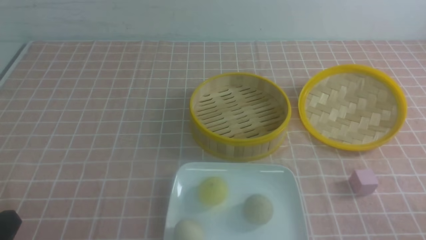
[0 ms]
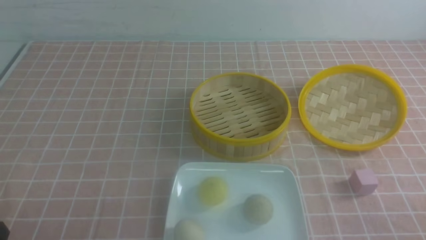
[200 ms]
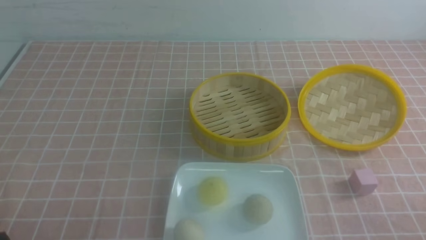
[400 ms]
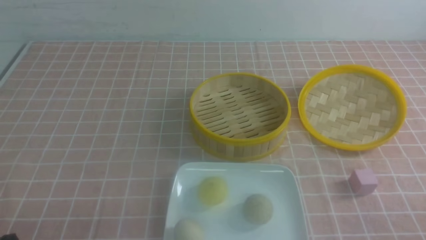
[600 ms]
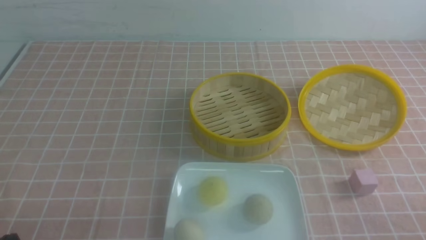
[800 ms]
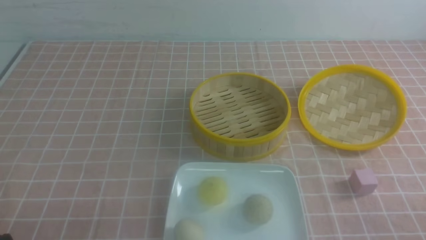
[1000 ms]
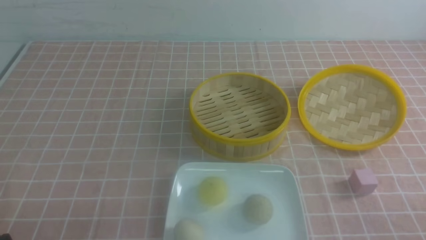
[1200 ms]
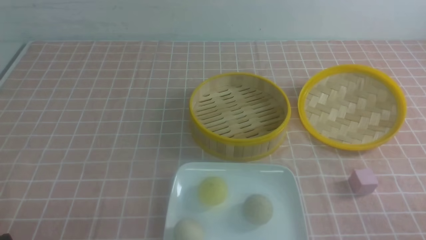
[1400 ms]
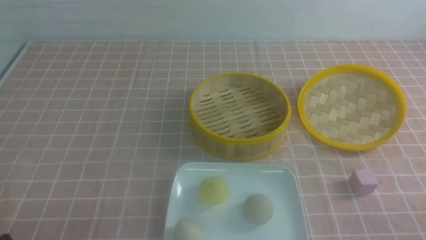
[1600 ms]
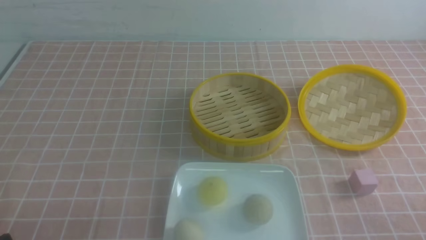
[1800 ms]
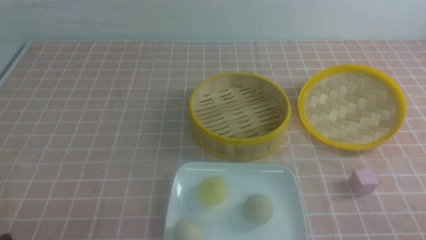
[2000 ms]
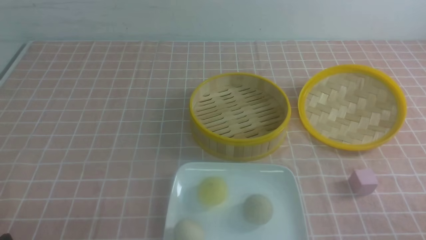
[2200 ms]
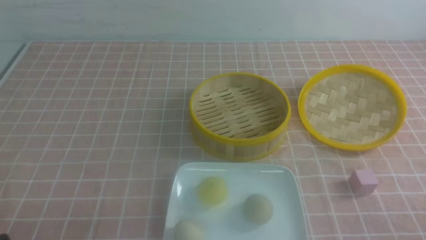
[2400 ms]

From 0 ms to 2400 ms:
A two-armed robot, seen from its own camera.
From 1200 ms to 2400 ms: The two grippers keep their place.

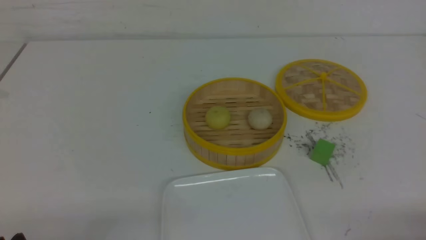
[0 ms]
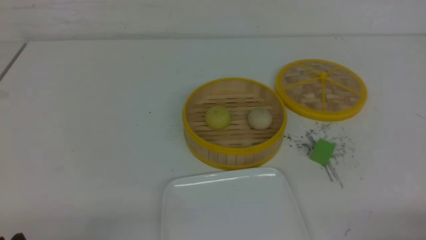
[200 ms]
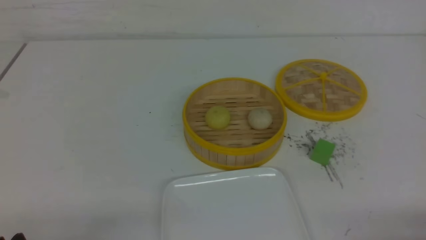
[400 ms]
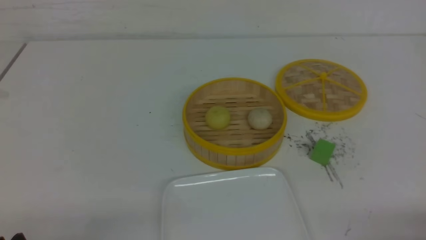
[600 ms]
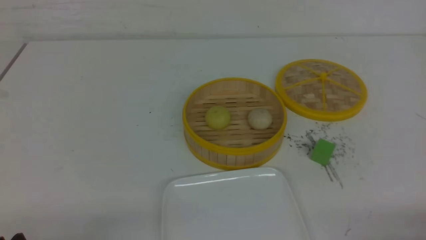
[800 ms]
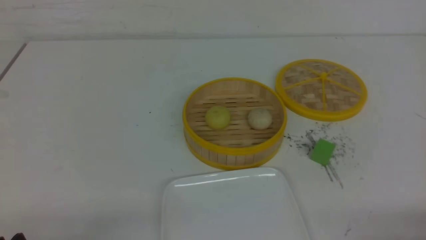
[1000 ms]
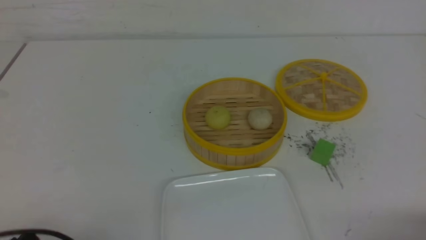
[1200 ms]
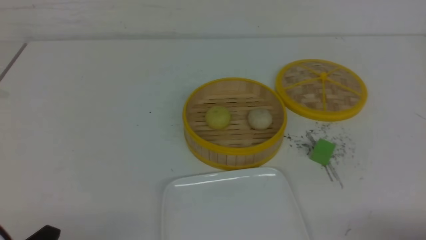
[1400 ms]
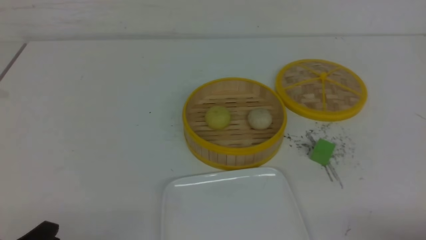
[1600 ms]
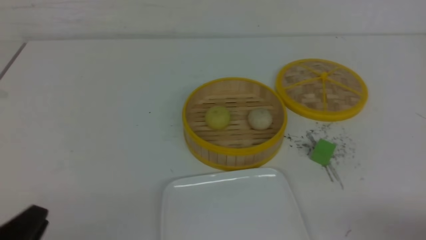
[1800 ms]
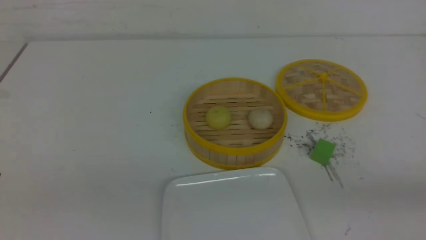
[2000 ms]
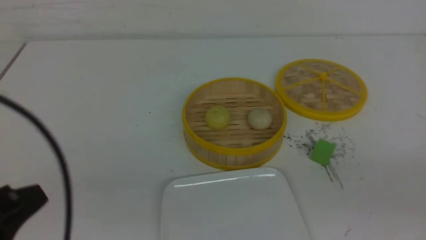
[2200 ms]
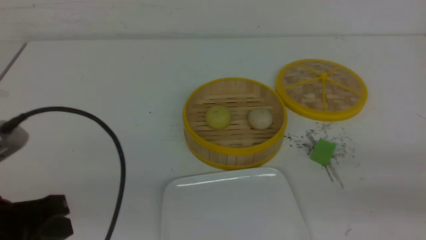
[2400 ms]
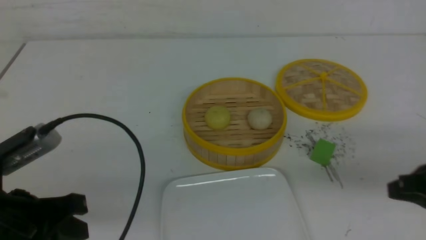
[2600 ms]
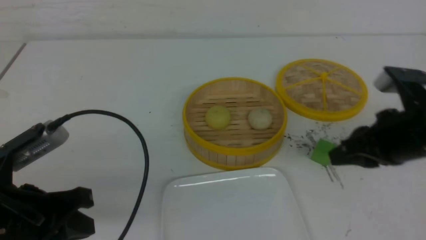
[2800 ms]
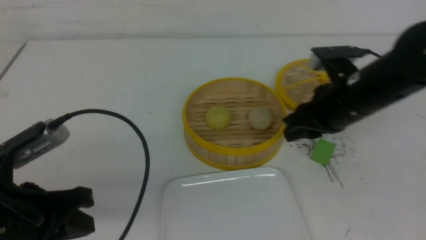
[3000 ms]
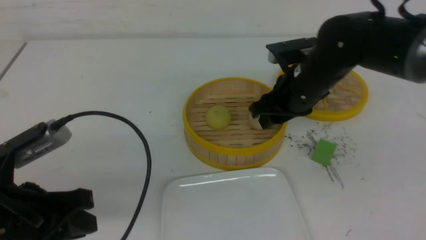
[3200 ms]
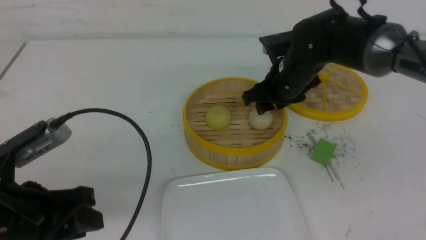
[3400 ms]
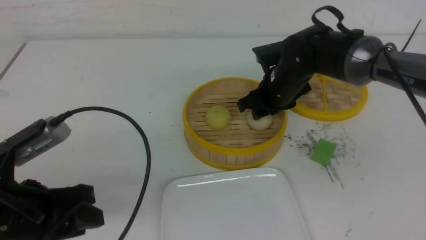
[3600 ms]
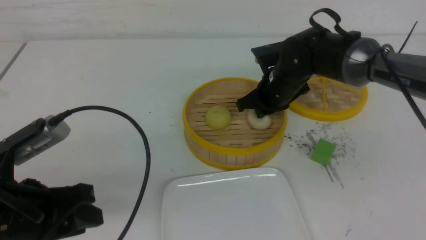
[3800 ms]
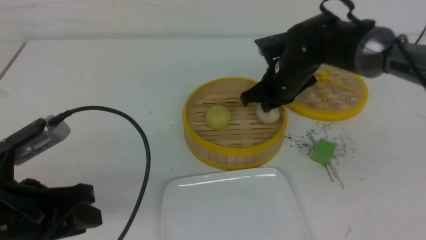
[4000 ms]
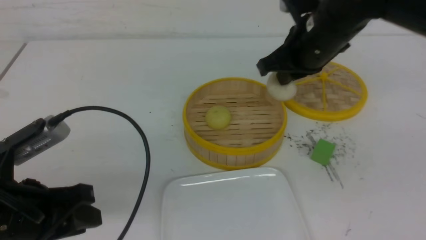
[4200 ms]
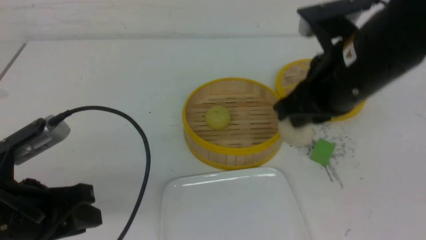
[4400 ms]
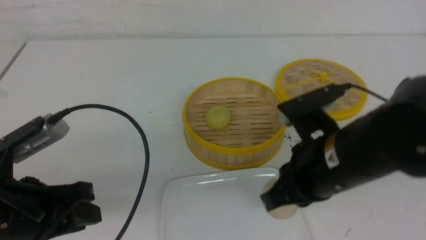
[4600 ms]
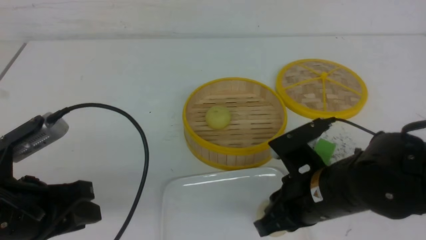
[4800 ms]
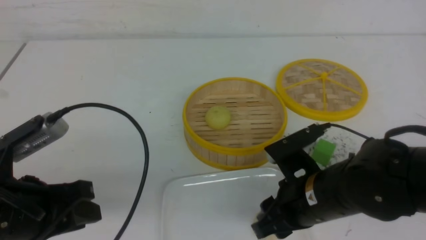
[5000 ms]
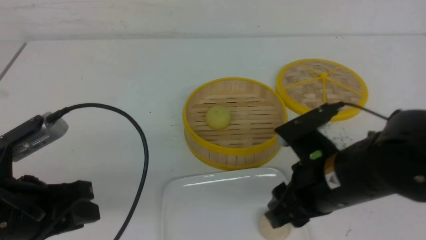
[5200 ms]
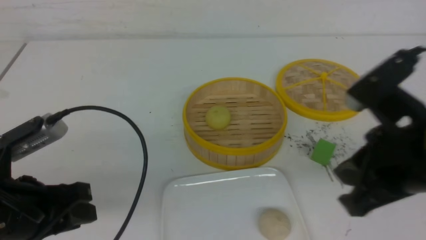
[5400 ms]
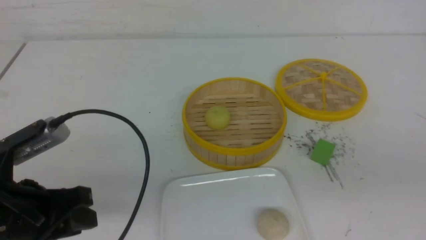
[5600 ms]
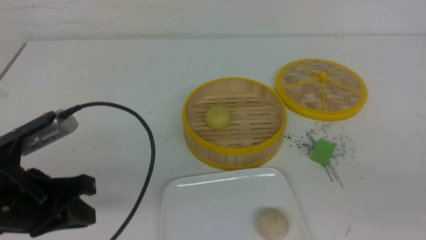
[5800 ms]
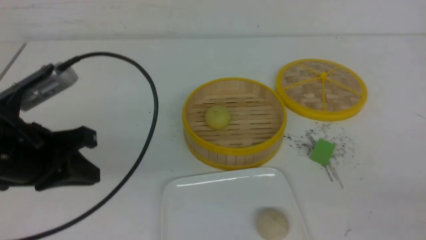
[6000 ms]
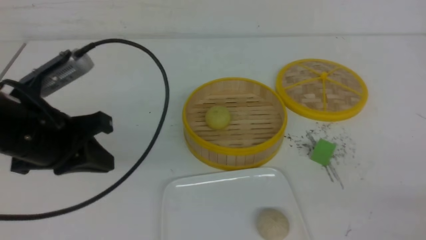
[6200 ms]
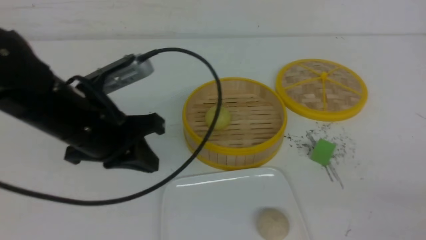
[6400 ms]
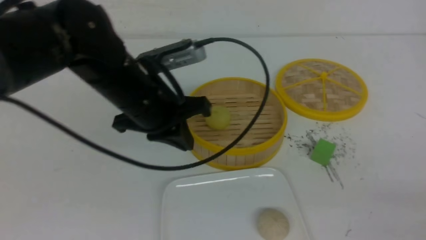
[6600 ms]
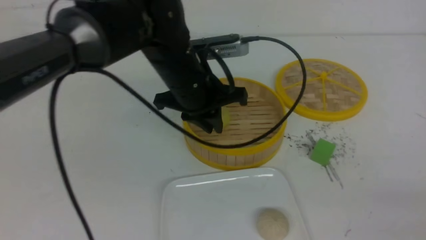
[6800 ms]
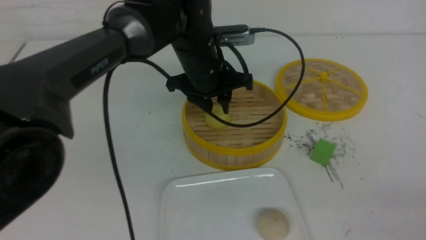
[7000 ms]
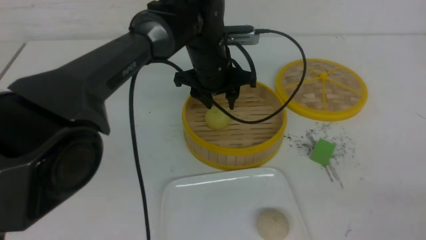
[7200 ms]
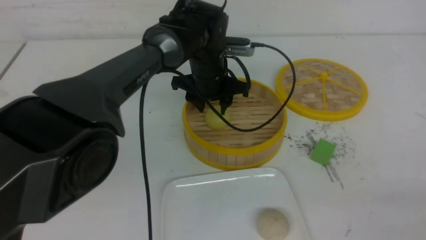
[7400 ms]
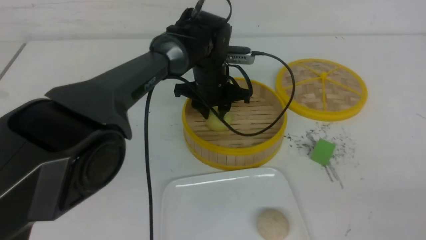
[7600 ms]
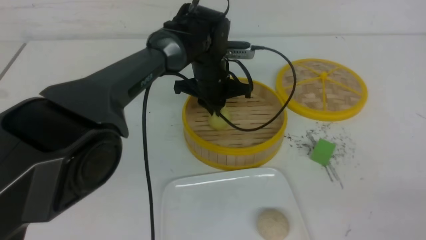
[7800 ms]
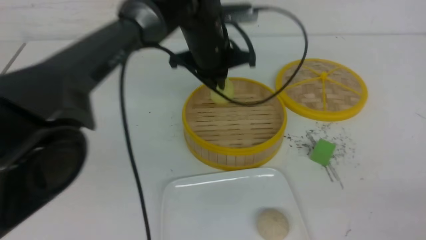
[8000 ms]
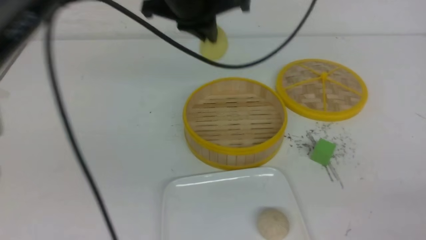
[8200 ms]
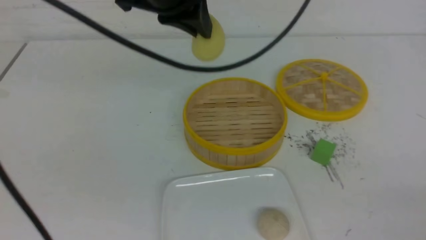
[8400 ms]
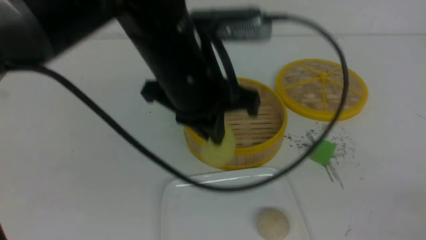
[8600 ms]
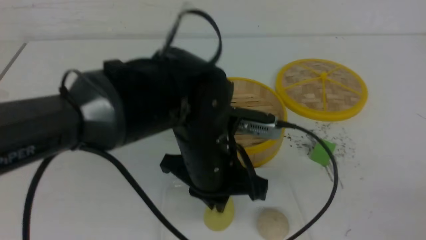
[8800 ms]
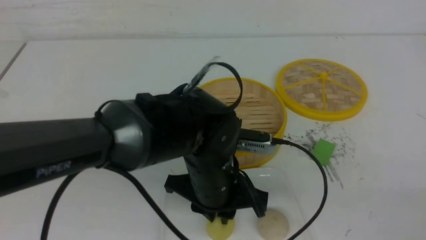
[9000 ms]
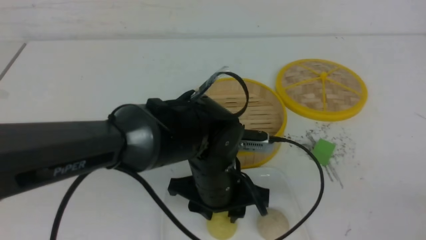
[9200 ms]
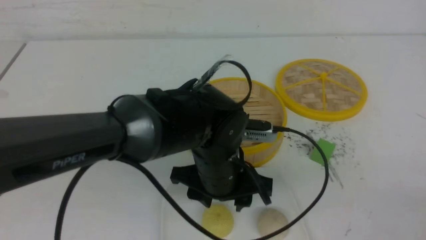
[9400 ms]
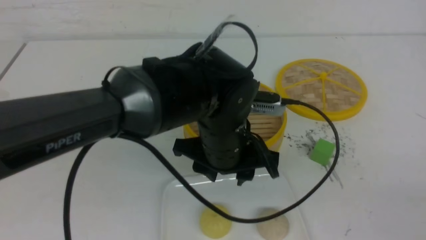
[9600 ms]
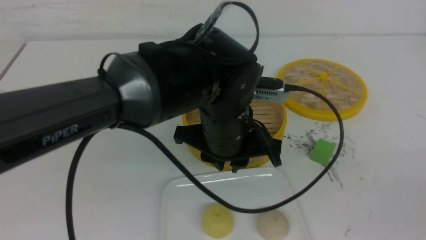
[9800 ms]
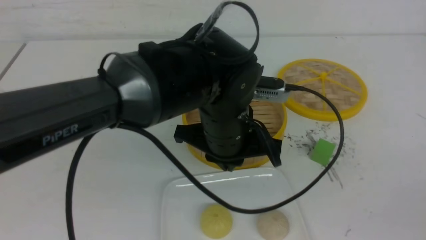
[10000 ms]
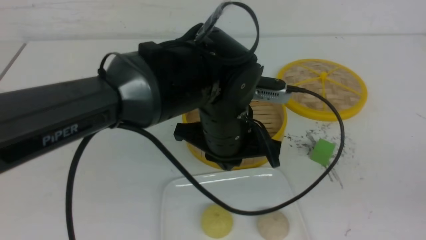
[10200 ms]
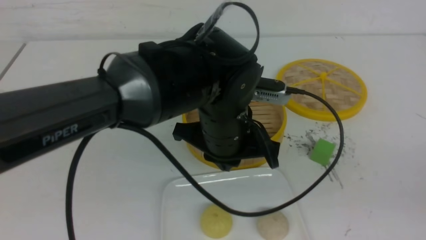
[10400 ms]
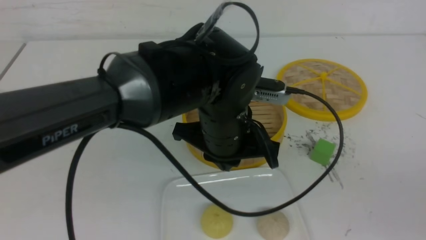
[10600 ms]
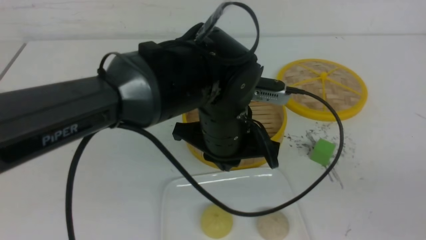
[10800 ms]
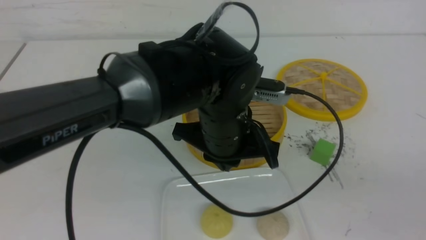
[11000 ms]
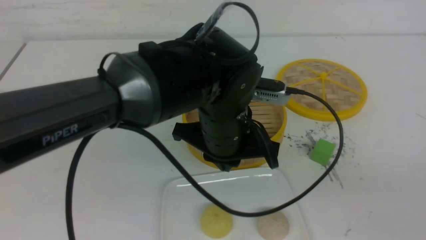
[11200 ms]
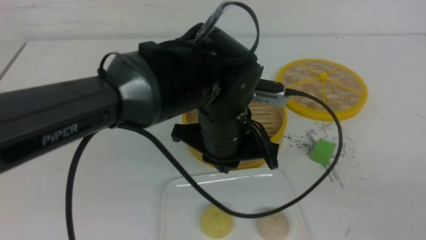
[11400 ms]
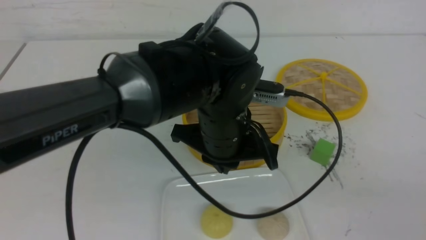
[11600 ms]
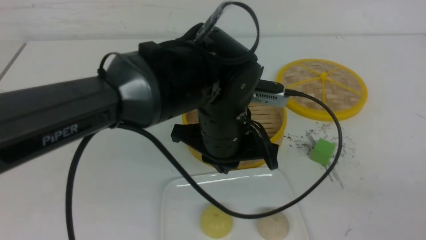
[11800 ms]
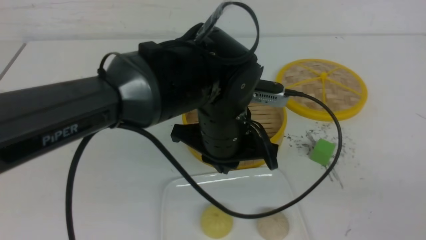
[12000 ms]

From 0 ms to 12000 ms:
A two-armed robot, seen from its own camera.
Step, from 0 ms to 3800 ms: use the right arm to grab the steamed stuffed bun that is closest to it.
Step, from 4000 ms to 5000 ms: use the right arm to put the steamed stuffed bun into the plate.
Step, from 5200 ms to 7600 ms: use the left arm to grab the steamed stuffed bun that is closest to it.
Step, from 8000 ms to 9400 ms: use the left arm to put the steamed stuffed bun into the plate.
From 1600 ms to 3000 ms: The right gripper shifts approximately 30 cm forward and to the left, and closes, then reopens, while the left gripper shifts approximately 10 cm forward and upward, and closes.
From 3000 ms to 4400 ms: The right gripper reaches roughly 10 cm forward, then returns, and closes. The left gripper opens.
From 4400 ms to 6000 ms: The right gripper shifts approximately 30 cm backward and to the right, and opens and closes again, while the left gripper shifts by some 5 cm, and closes its fingers.
From 6000 ms to 7600 ms: The left gripper heads forward and to the right, covering approximately 30 cm, and opens its fingers.
From 7600 ms to 9000 ms: The left gripper moves backward, some 20 cm, and closes, then opens again.
From 9000 ms to 10400 ms: Both grippers travel together upward, approximately 5 cm. The left gripper closes its fingers.
From 10400 ms to 12000 ms: The right gripper heads to the left and downward, covering approximately 10 cm.

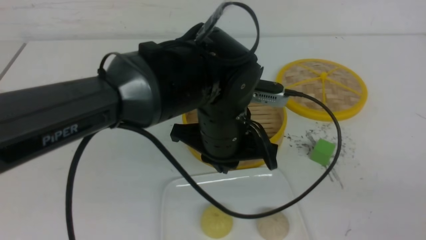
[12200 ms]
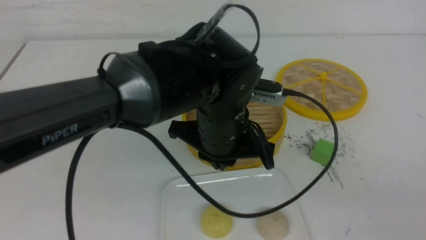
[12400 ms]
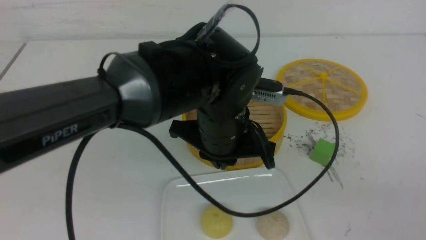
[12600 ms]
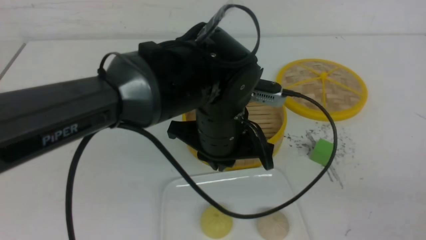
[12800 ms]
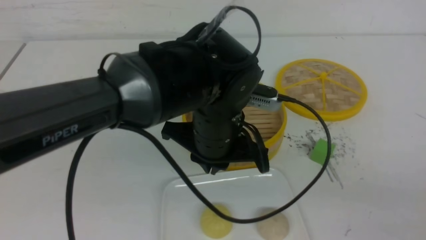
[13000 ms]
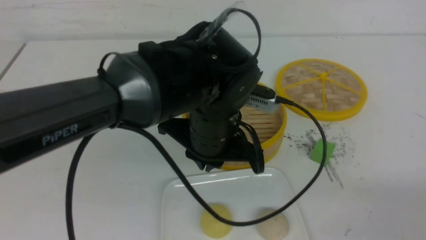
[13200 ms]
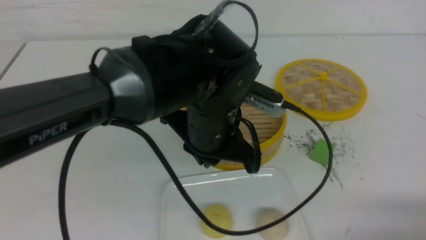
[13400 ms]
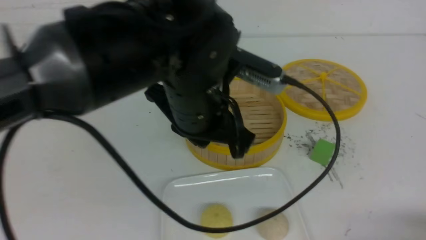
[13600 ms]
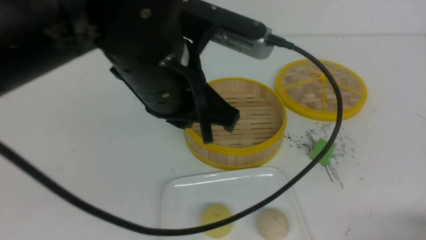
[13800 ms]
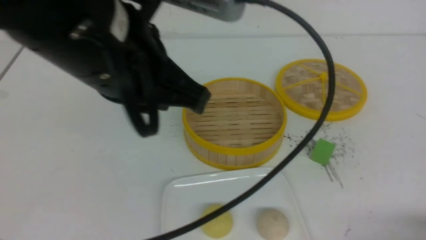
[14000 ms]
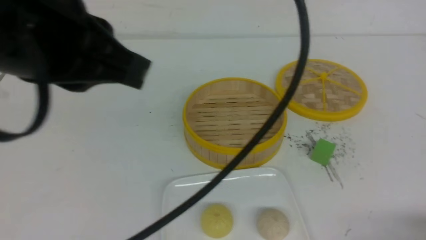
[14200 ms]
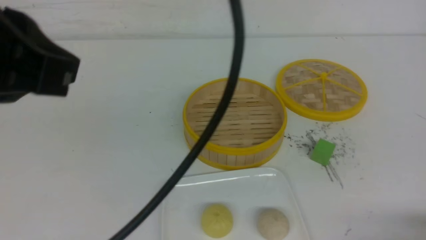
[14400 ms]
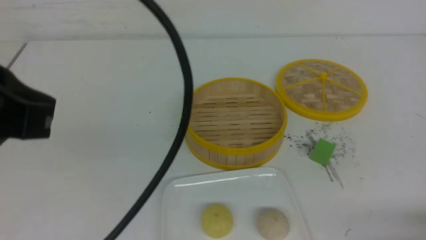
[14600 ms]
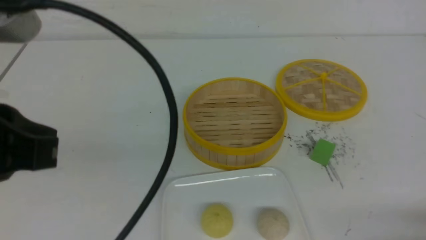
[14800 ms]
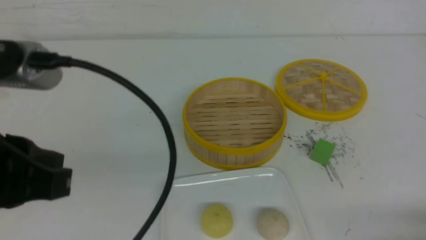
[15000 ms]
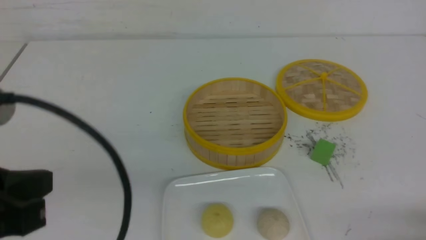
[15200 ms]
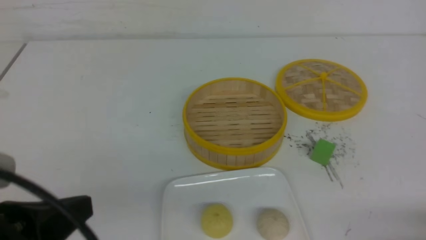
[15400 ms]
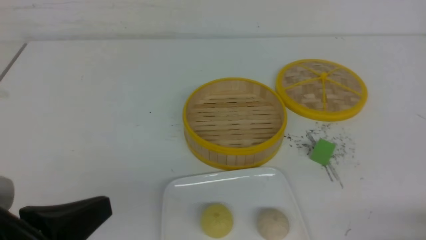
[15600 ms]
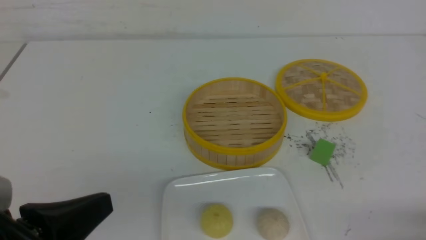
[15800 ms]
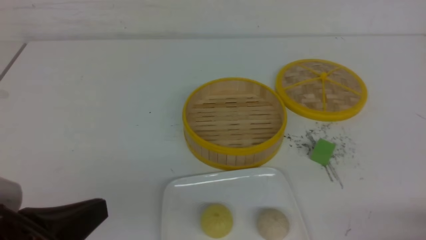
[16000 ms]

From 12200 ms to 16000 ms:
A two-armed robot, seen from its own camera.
From 12200 ms to 13400 ms: The right gripper heads downward, covering about 10 cm.
From 13400 ms to 14800 ms: The left gripper moves to the left, backward and upward, approximately 25 cm.
From 14800 ms to 16000 ms: The left gripper goes about 10 cm downward.
